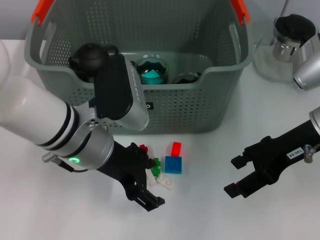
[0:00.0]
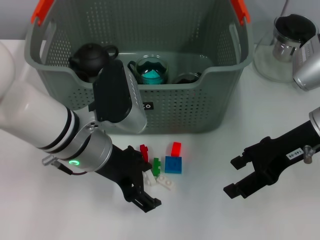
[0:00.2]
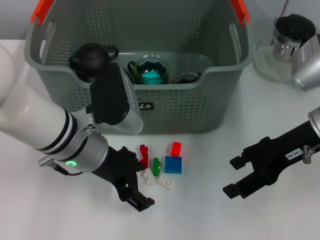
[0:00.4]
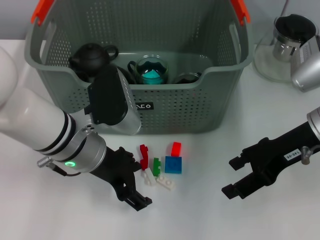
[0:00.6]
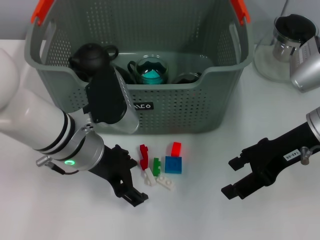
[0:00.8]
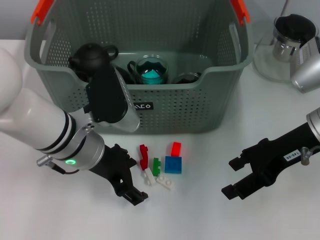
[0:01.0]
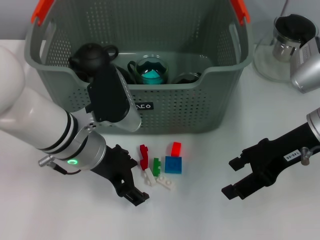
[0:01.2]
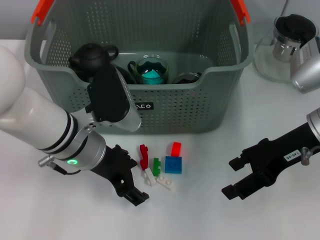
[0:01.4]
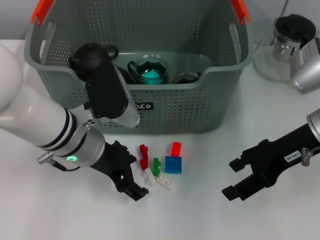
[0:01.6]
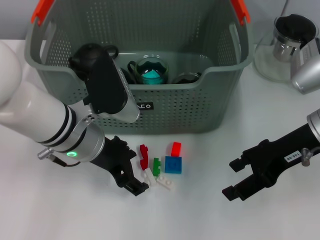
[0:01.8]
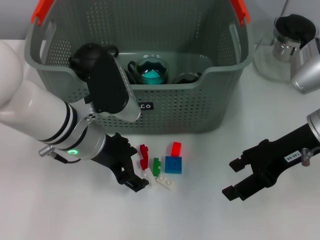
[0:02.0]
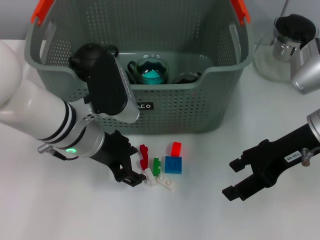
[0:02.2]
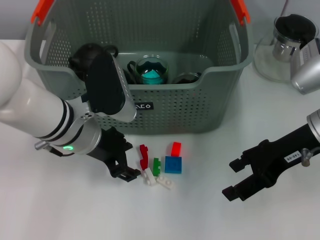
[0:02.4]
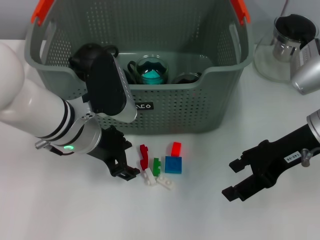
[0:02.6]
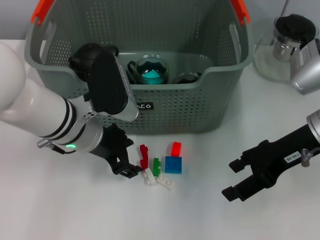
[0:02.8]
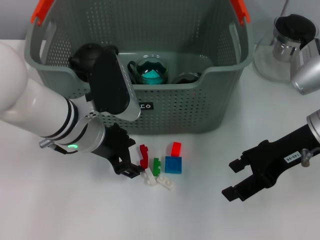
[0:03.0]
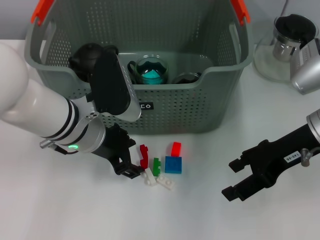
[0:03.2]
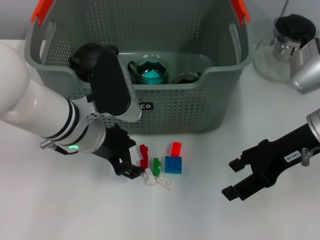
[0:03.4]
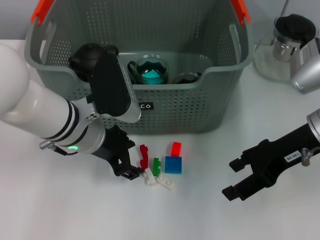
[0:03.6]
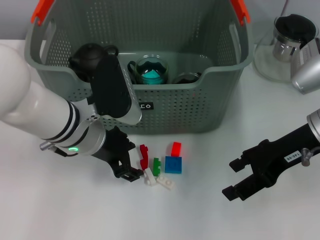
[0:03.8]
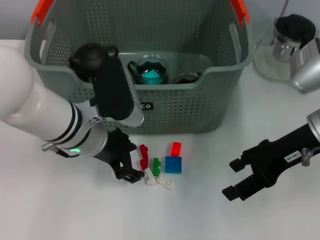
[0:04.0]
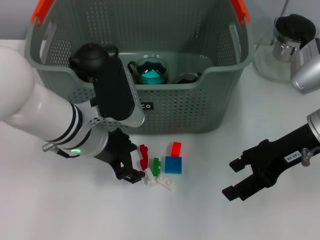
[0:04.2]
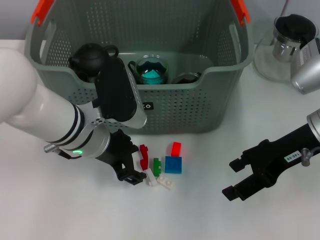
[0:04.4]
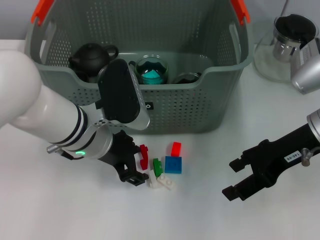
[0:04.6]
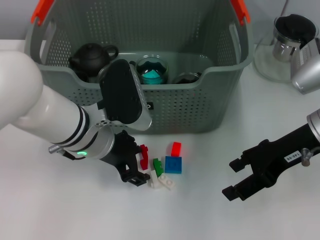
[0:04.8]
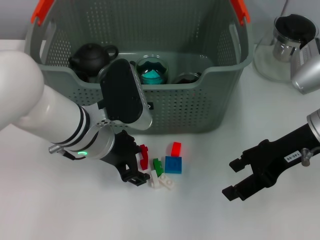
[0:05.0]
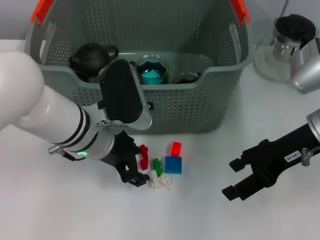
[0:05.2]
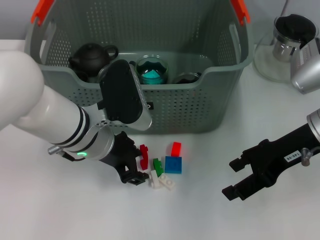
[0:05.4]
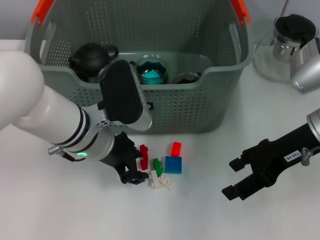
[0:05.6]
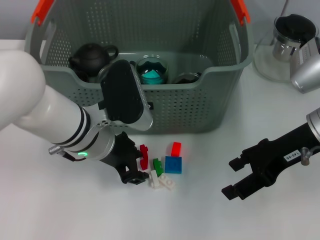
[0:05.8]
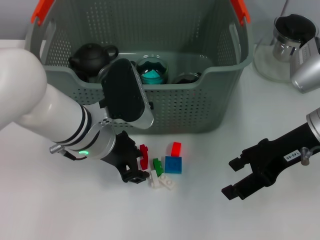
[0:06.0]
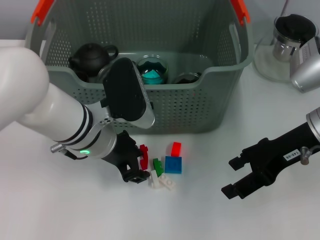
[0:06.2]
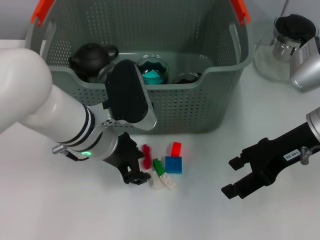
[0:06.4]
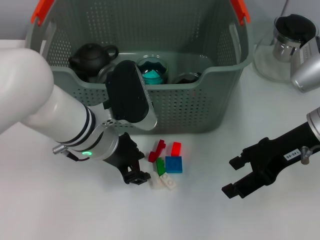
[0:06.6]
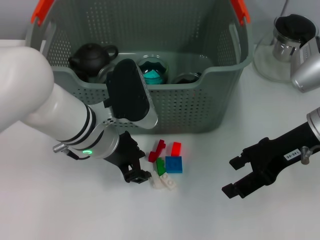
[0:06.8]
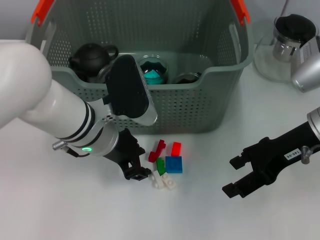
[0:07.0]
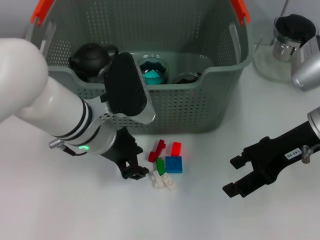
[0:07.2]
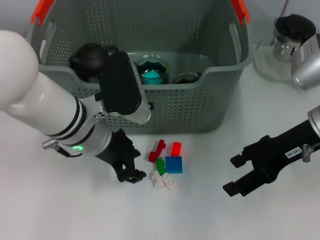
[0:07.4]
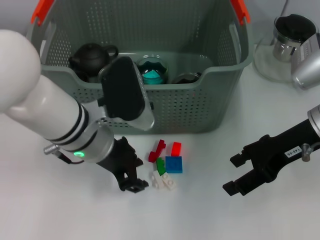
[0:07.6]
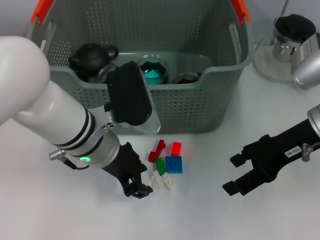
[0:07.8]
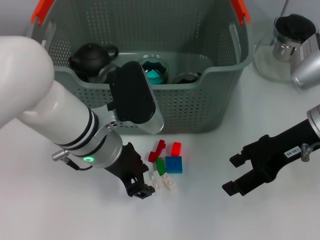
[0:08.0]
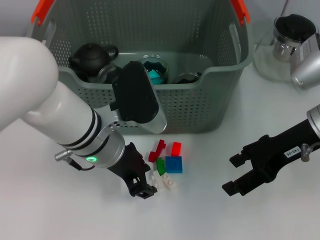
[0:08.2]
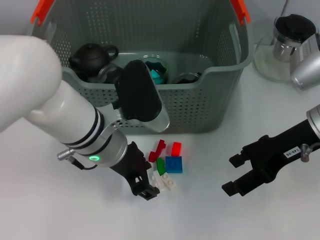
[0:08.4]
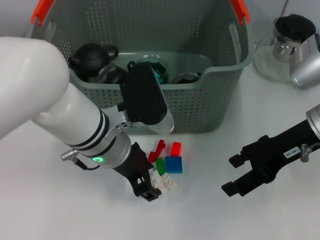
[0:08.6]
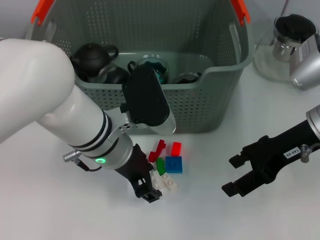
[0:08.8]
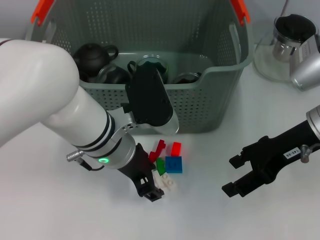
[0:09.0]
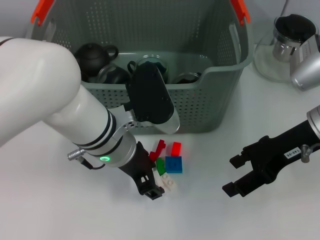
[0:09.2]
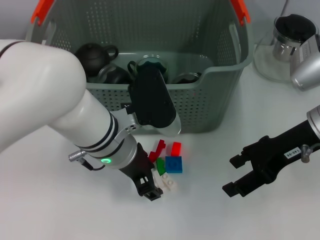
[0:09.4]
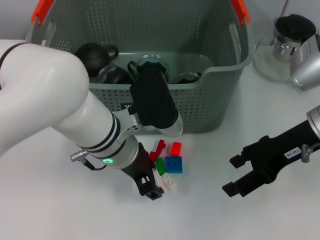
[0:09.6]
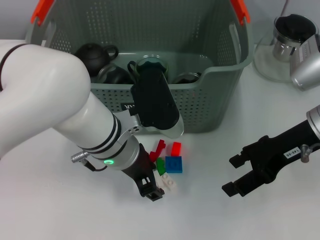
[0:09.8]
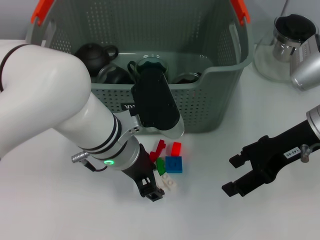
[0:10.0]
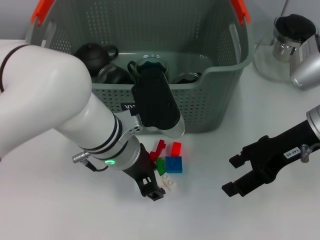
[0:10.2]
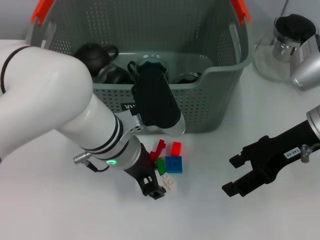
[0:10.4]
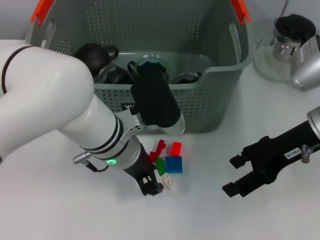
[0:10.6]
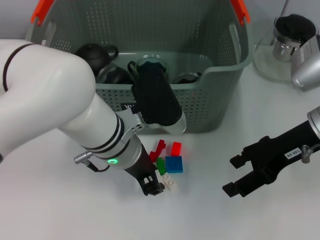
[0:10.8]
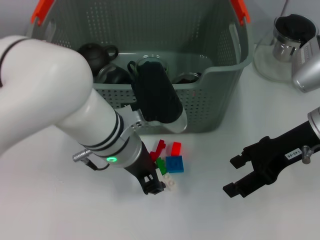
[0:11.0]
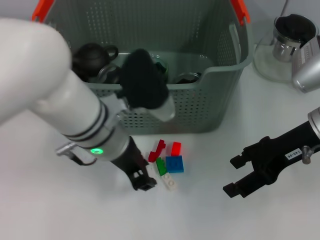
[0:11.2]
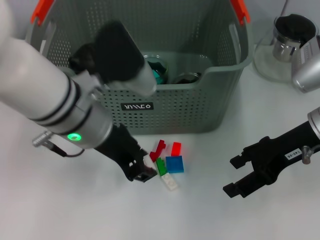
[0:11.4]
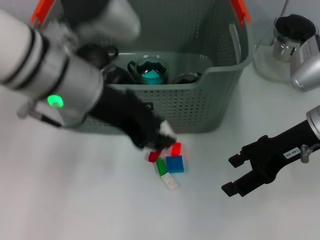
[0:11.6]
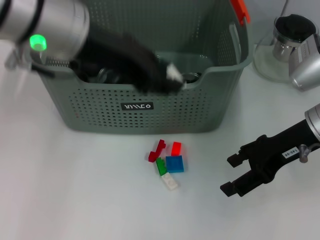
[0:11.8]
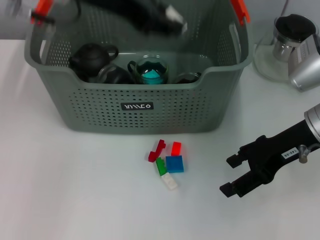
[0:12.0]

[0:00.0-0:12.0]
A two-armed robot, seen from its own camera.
Task of the whole recording: pick up the teacup on the table and place it into the storage bin, pick up the block on the table and place it into the storage bin.
Step, 0:00.0 to 0:10.6: Grasp the white block with left gripper.
0:00.0 to 0:03.0: The grippers move only a little.
0:03.0 to 0:04.4: Both grippers stay about where they are.
0:04.4 to 0:06.0: Both grippers stay put.
0:06.0 to 0:09.0: The grippers move only a little.
0:09.0 to 0:10.4: Both grippers stay put.
0:10.4 to 0:12.0: The left gripper travels upward by roughly 20 cm.

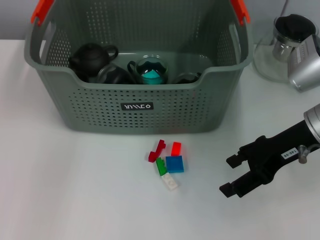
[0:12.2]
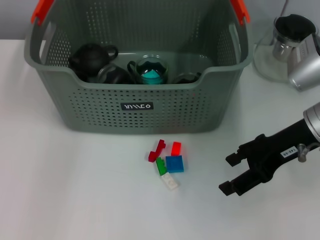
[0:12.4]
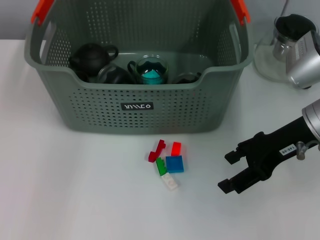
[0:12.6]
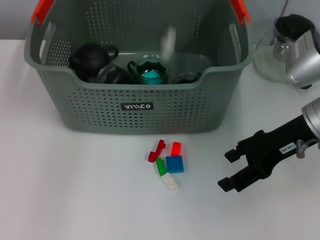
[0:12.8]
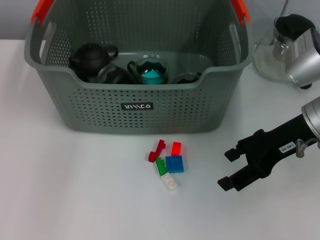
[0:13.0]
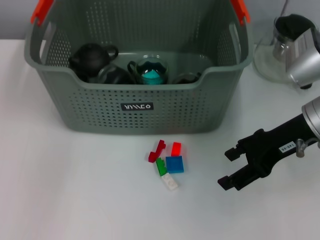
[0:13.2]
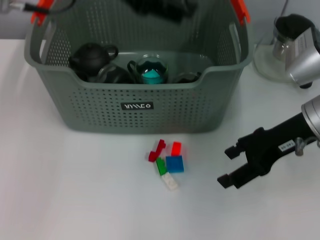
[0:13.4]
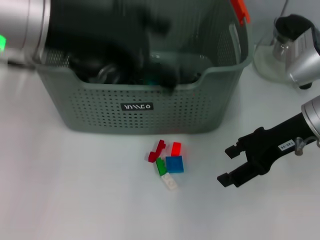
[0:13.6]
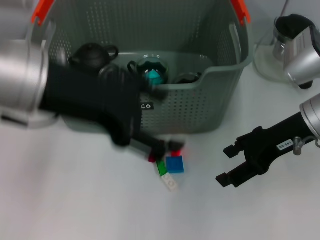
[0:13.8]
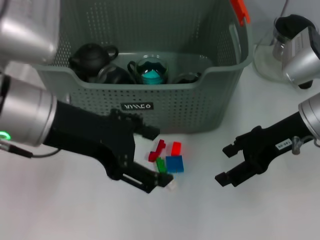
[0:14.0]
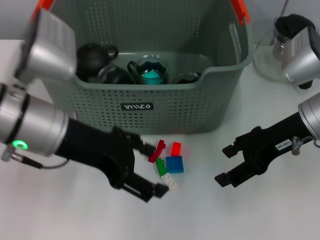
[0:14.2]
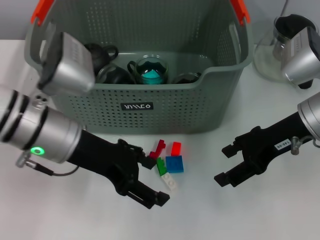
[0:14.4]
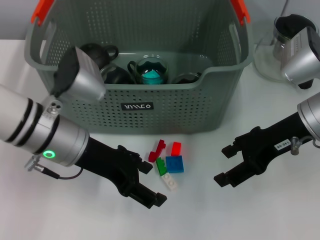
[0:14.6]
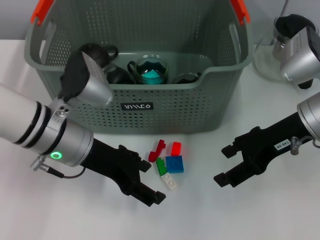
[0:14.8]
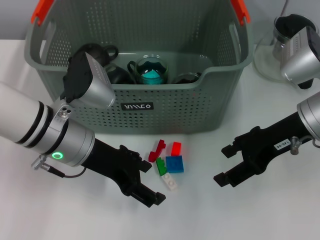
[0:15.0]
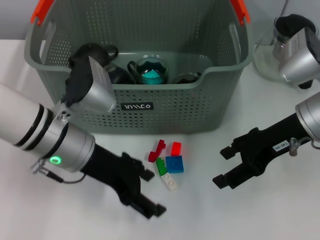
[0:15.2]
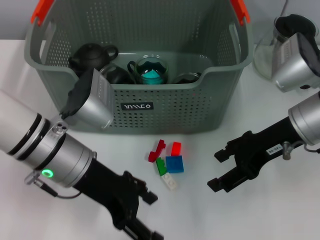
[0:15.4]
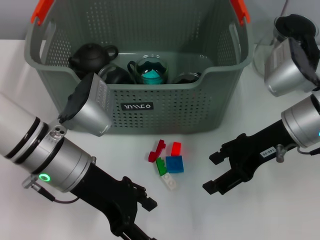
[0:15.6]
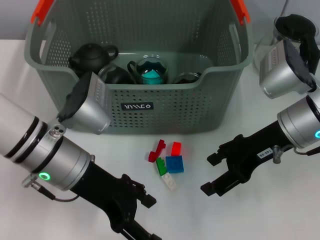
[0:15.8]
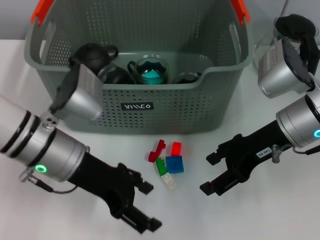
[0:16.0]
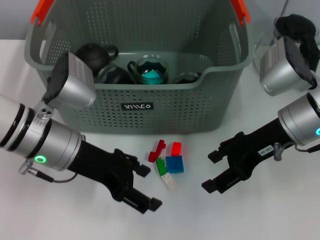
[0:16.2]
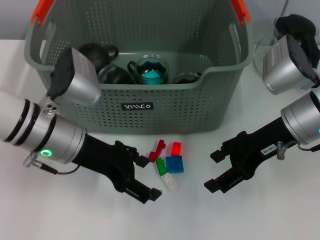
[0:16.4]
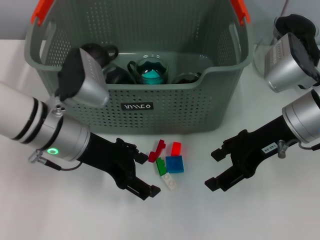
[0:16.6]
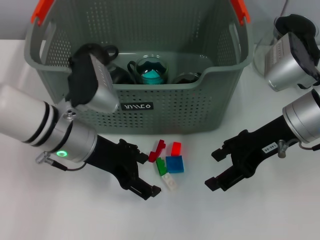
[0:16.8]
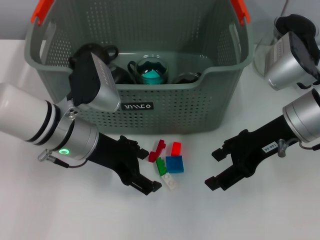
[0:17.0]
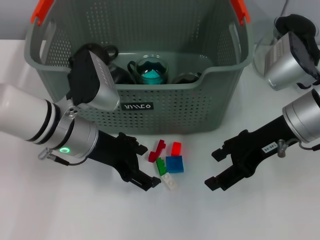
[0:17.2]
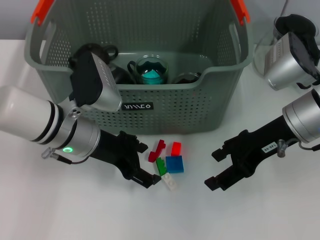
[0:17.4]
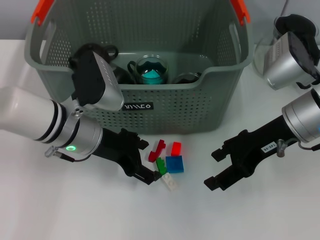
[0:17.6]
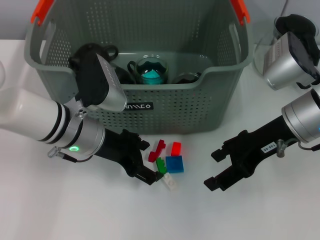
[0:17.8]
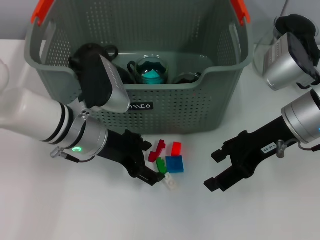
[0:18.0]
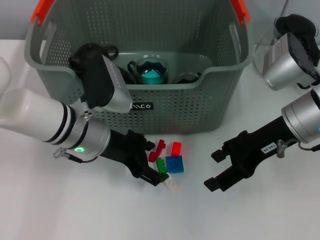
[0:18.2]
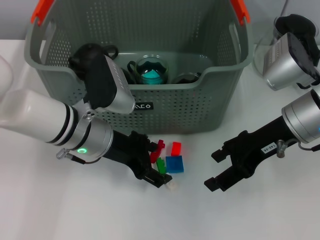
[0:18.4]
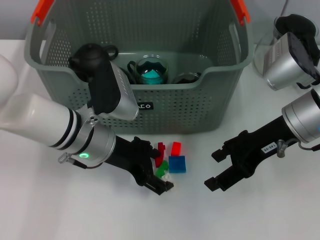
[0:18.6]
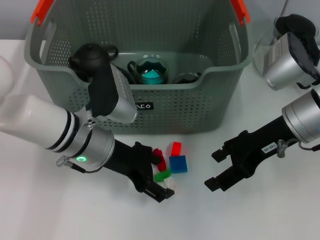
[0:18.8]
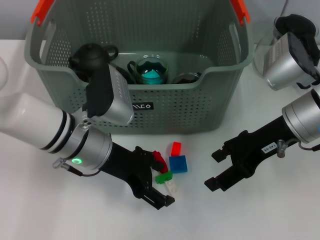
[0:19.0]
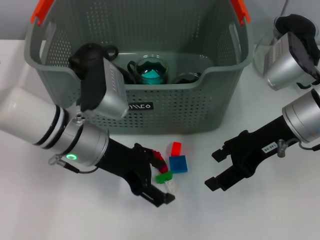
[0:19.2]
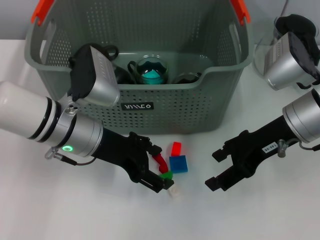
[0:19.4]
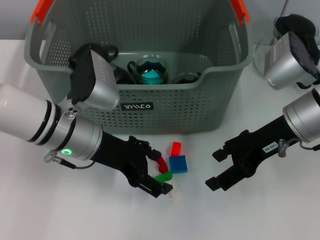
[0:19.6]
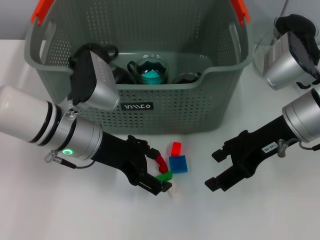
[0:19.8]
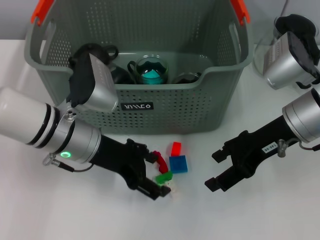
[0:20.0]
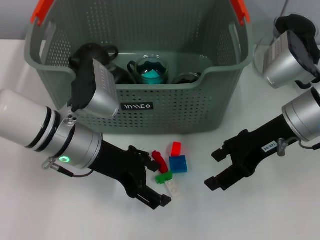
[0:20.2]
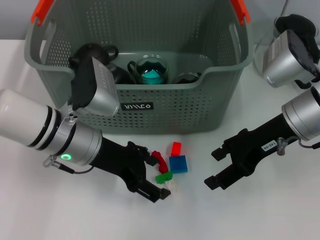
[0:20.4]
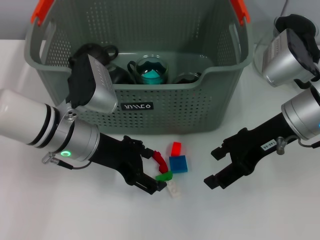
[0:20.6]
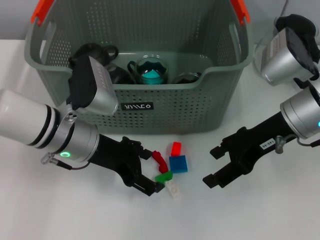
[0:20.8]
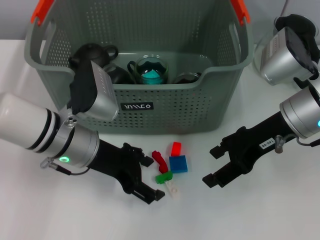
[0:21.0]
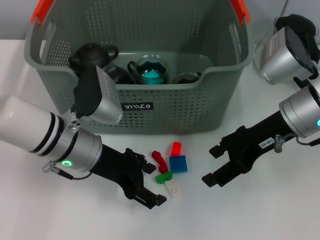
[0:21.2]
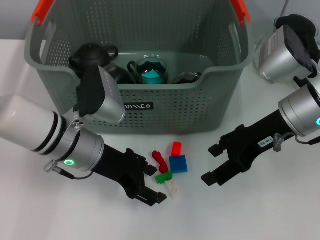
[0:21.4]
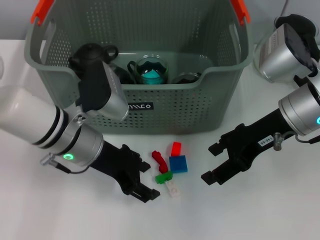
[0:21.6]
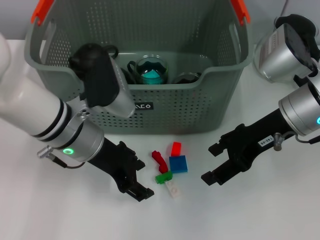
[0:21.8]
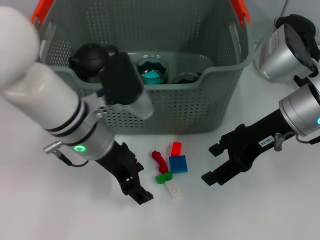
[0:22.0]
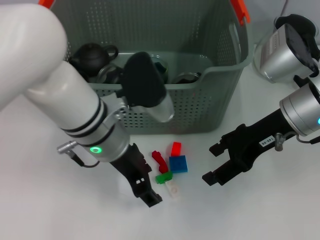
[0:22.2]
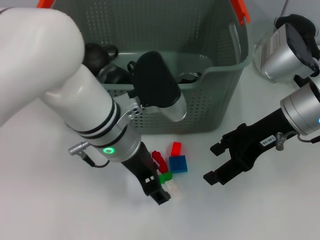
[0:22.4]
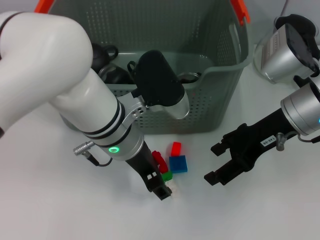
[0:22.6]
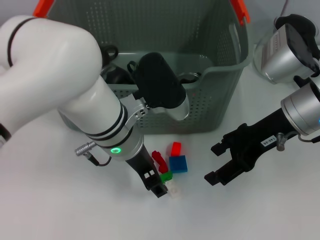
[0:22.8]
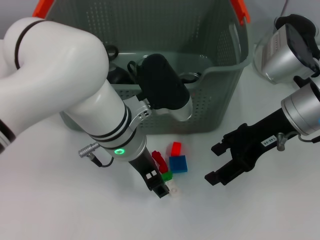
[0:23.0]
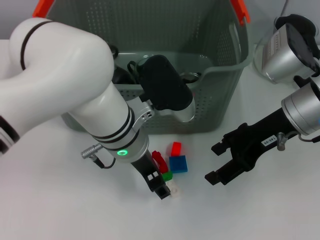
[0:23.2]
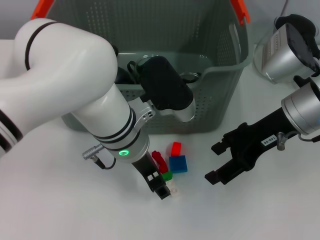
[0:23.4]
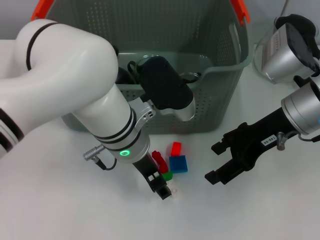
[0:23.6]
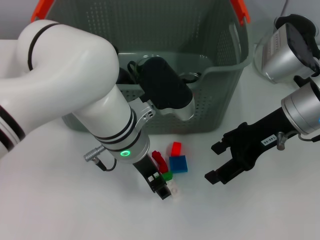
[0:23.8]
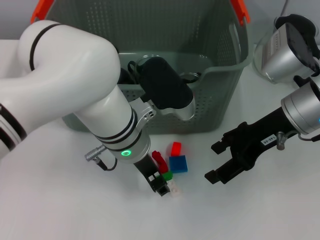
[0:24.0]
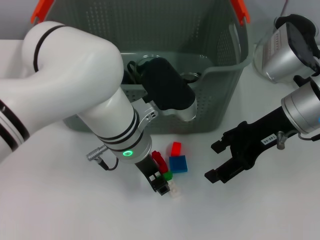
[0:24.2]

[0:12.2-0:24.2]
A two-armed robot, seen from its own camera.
Task of the whole recording: pick up the teacup on the table and place it into the storage bin, pick up the block on the table and place it into the storage bin.
0:12.2 to 0:13.8: The left gripper goes about 15 cm backward, and opens its fingers.
0:13.8 to 0:15.2: The left gripper travels downward by approximately 15 cm.
0:15.2 to 0:19.8: There are only small adjustments of the grippers.
0:19.8 to 0:21.2: Both grippers stay about where they are.
0:21.2 to 0:22.6: The left gripper moves to the right, about 10 cm.
0:22.6 to 0:24.2: The grippers move only a little.
